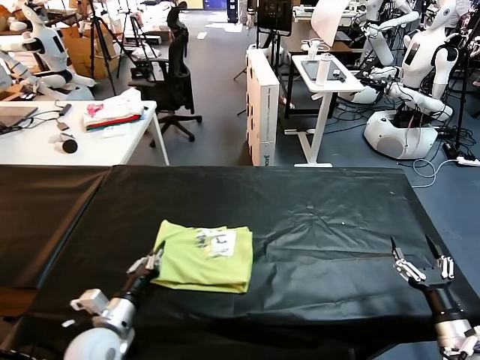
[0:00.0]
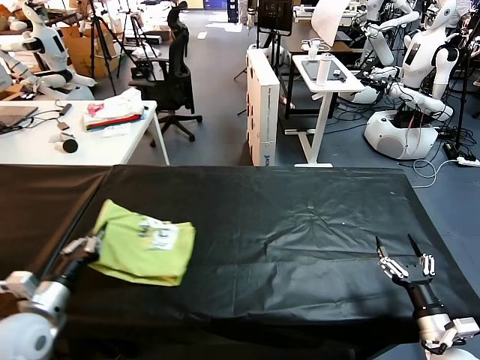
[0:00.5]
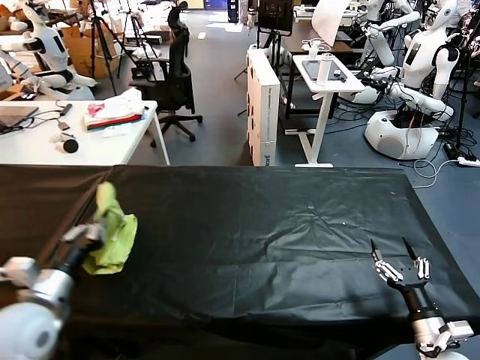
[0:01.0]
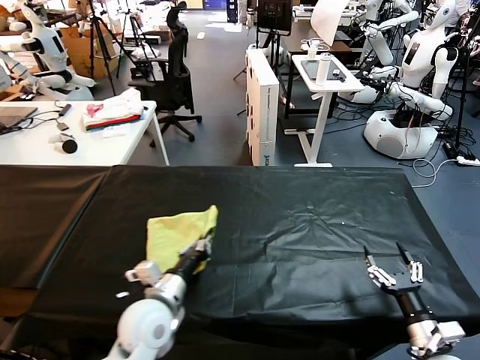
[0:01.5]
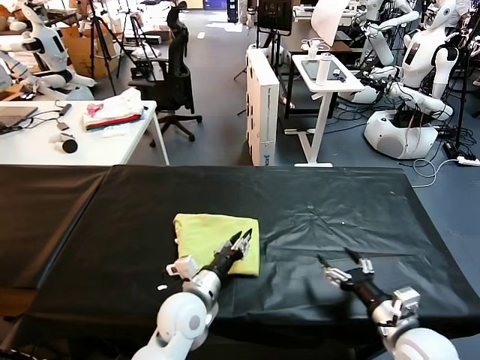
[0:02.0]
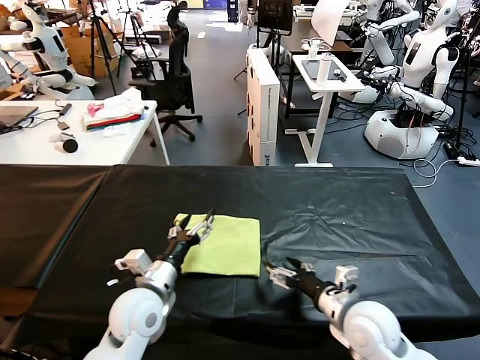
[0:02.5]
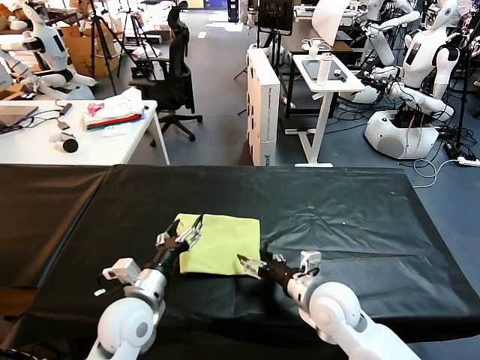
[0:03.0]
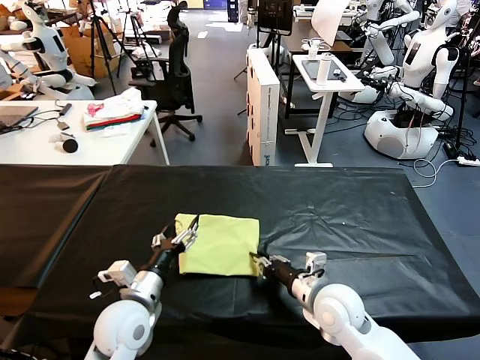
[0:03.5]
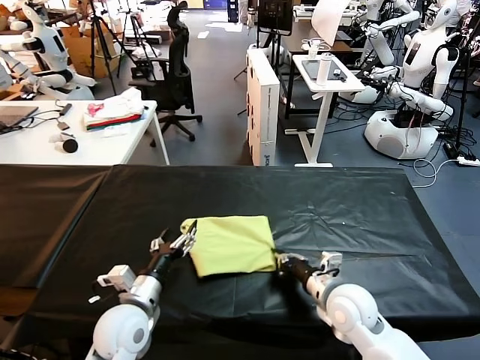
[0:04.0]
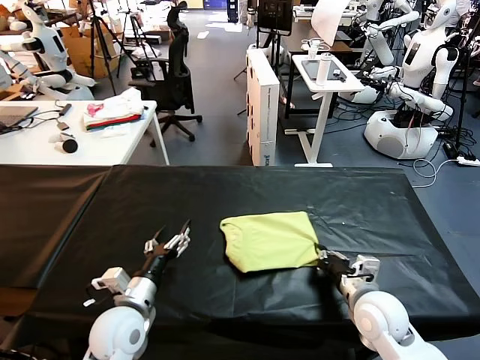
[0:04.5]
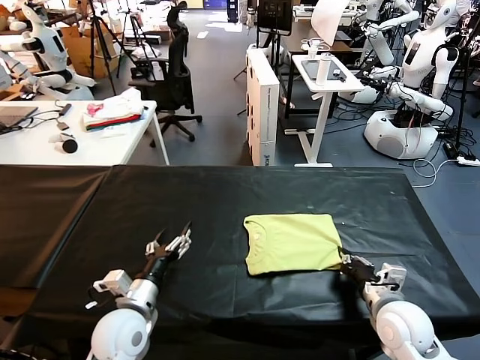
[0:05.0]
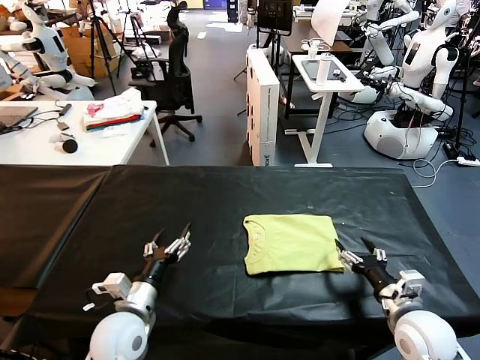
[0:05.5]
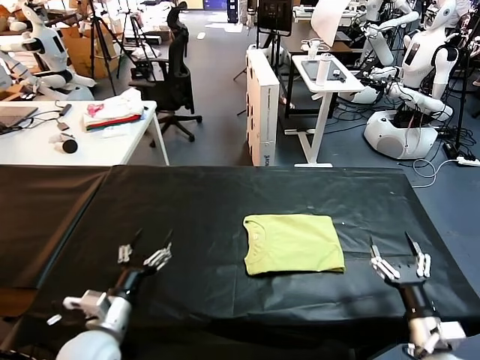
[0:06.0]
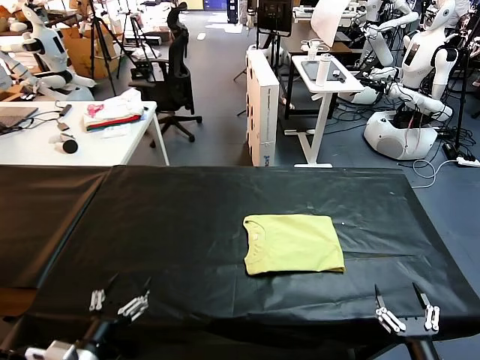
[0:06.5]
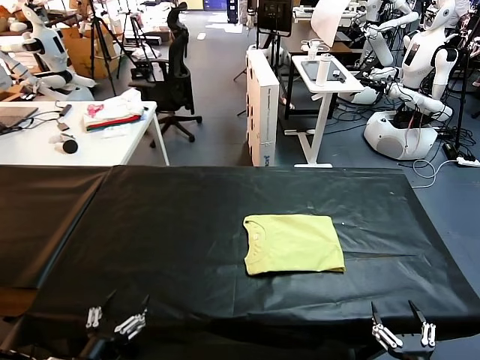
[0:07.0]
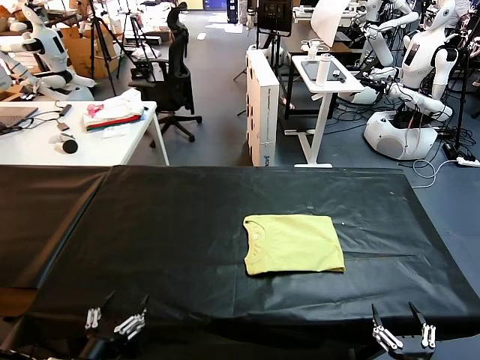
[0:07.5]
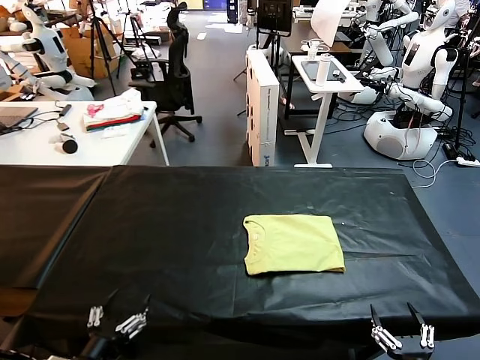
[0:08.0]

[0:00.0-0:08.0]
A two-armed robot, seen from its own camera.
Task of the whole recording: fold and organize the clothes.
Step, 0:00.0 to 0:02.0: Flip the folded clothes over with left gripper.
Step, 0:02.5 to 0:05.0: Drag the clothes to the center of the table.
0:00.0 to 0:02.0: The left gripper goes roughly 15 cm to the right, while the right gripper goes roughly 10 cm to the left.
0:02.0 to 0:04.0: The left gripper is displaced to the left by about 10 cm, and opens. Meanwhile the right gripper goes about 15 cm to the left and forward, and closes its fingers.
0:04.0 to 0:06.0: The right gripper heads to the right and backward, covering roughly 20 cm, and opens. Meanwhile the left gripper shifts by some 5 cm.
0:06.0 to 0:08.0: The grippers both shift backward by roughly 15 cm.

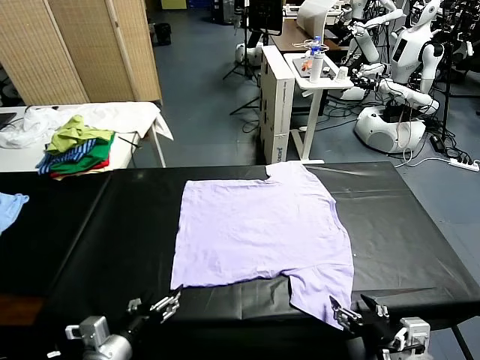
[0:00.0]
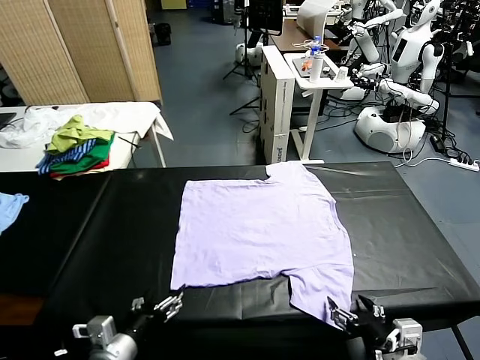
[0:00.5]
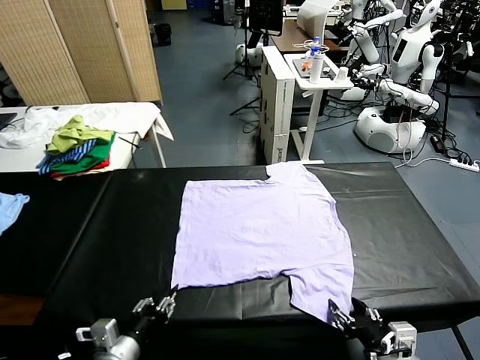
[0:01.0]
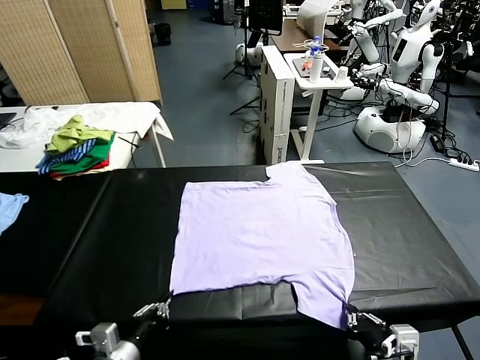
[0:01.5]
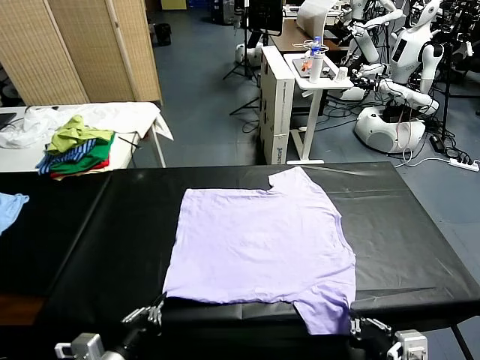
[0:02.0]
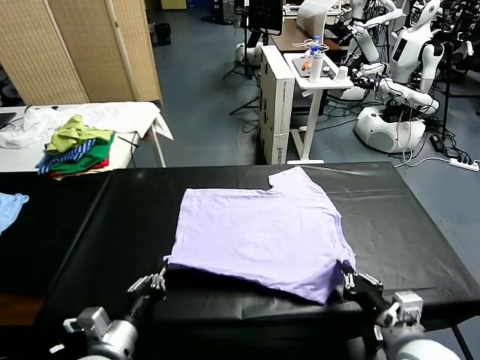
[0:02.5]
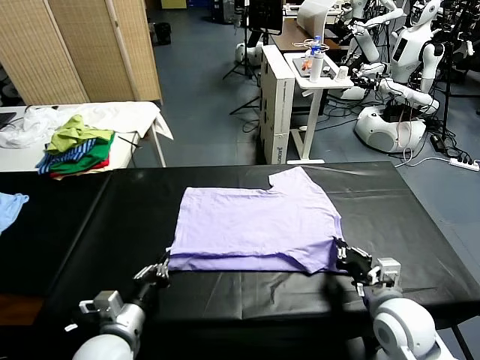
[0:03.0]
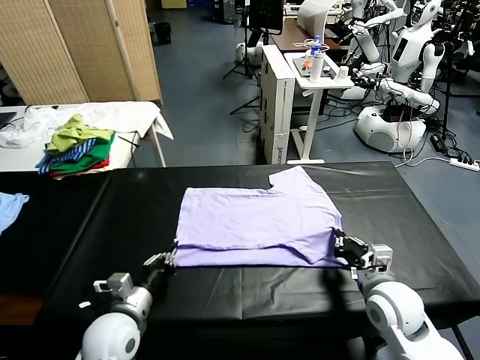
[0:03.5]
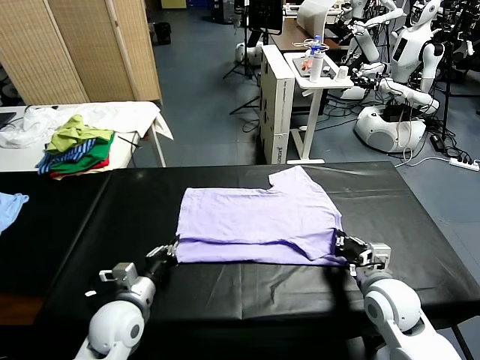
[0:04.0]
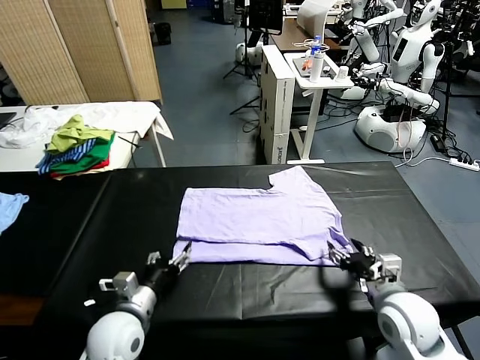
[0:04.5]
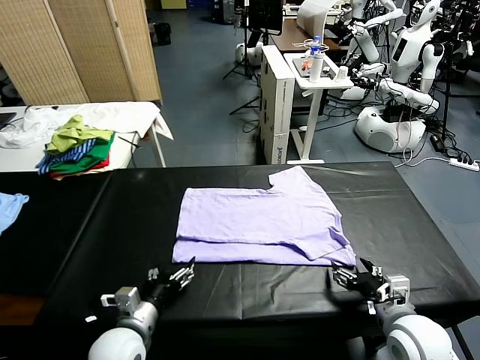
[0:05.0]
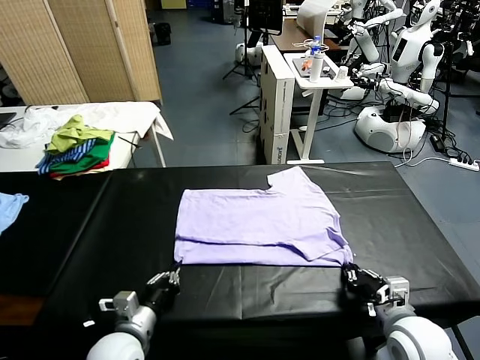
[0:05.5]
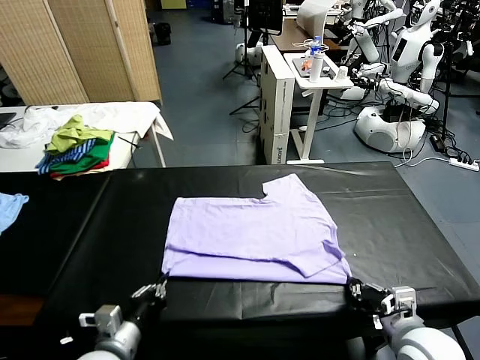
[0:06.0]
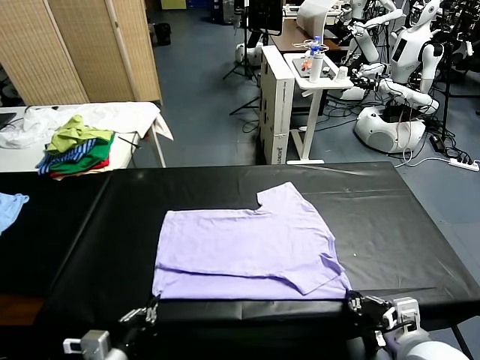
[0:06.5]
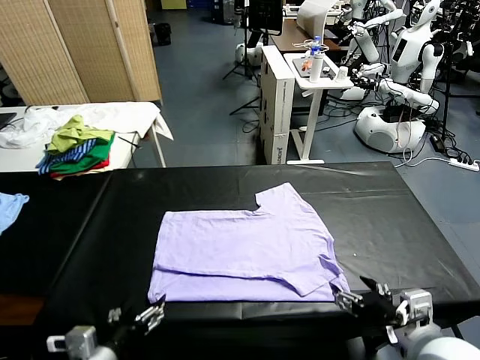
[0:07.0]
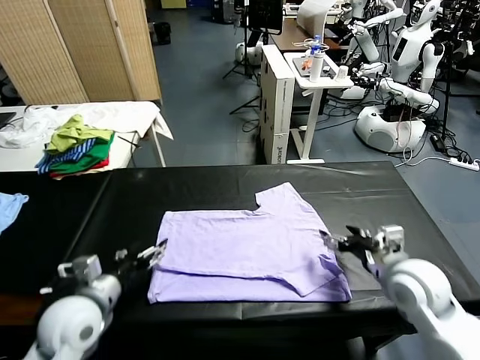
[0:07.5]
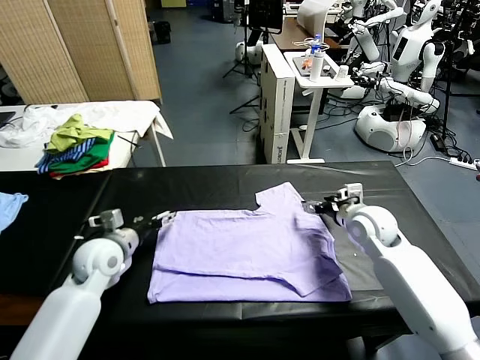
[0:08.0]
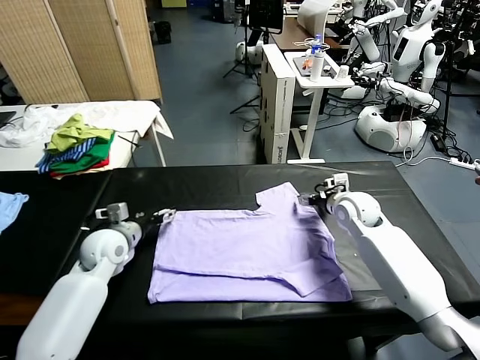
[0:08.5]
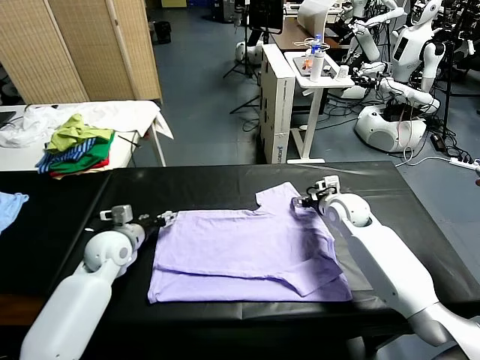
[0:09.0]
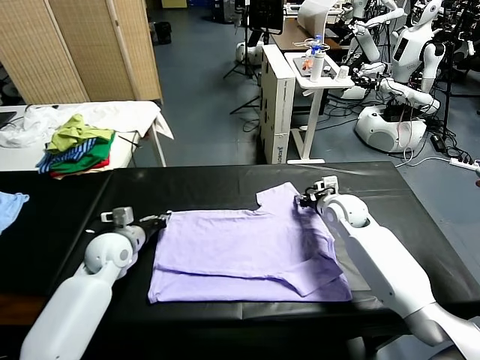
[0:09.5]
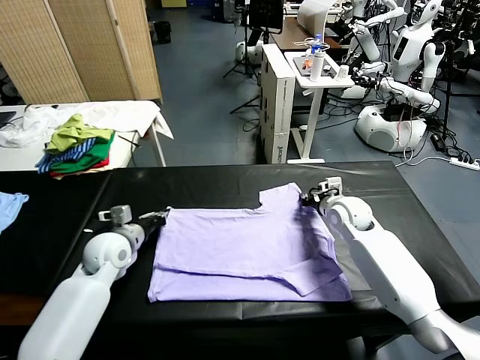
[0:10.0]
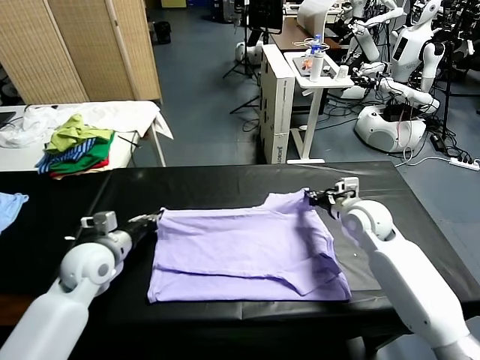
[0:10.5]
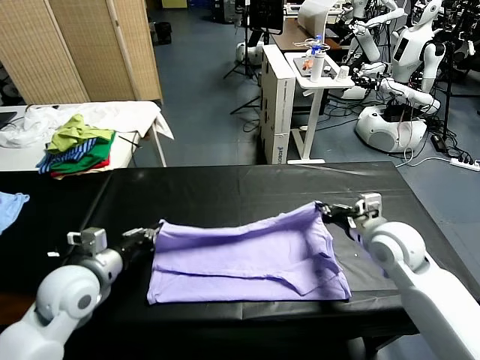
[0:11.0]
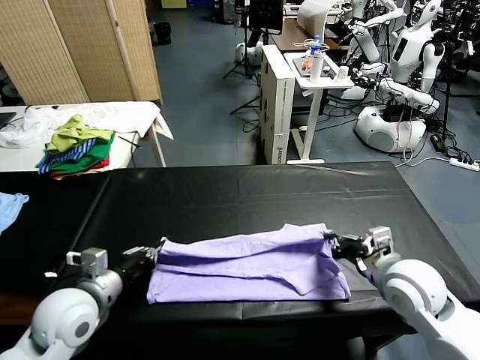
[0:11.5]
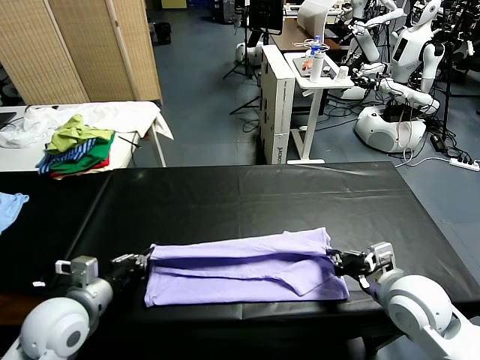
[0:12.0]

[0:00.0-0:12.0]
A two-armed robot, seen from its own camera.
Task of the whole recording: fold and organize the clothes.
Step, 0:00.0 to 0:01.5: use both grippers simultaneously to clamp the lower edge of the clothing fabric.
Step, 0:02.0 to 0:04.0: use both grippers to drag the lower edge of the fabric forward and fold it over the upper edge.
Step, 0:05.0 to 0:06.5: Drag the clothes downward with both gripper.
Step, 0:07.0 to 0:10.0: use both grippers simultaneously to clamp the upper edge of the clothing fabric.
0:02.0 to 0:04.0: The right gripper moves forward, roughly 10 cm, and opens up, while the left gripper moves forward and downward, about 15 cm.
0:04.0 to 0:06.0: Both grippers move backward, approximately 10 cm. The left gripper opens and closes again. Meanwhile the right gripper closes up.
0:06.0 to 0:08.0: The grippers both shift forward by about 30 cm. The right gripper opens up, while the left gripper opens its fingers.
0:08.0 to 0:10.0: The left gripper closes its fingers, while the right gripper closes up.
0:10.0 to 0:12.0: Both grippers travel together backward, some 20 cm.

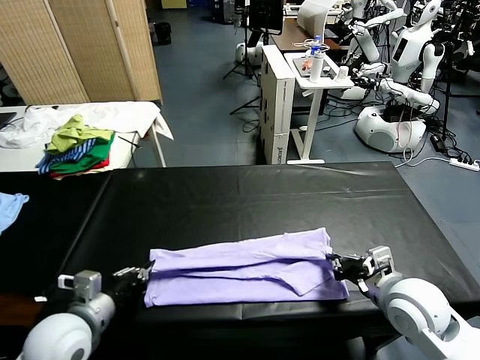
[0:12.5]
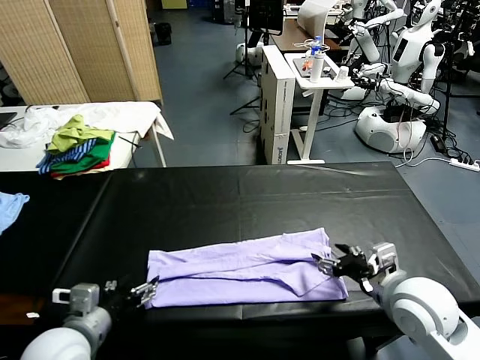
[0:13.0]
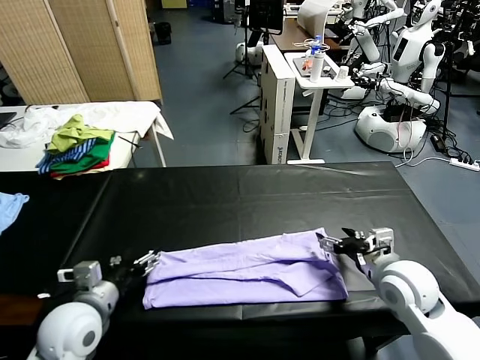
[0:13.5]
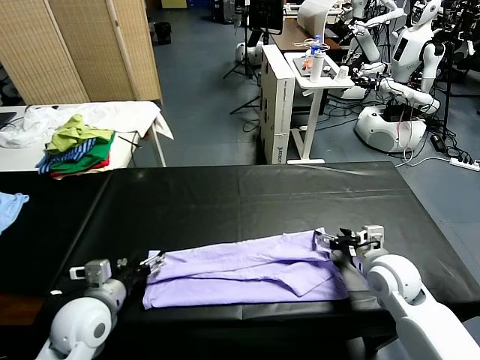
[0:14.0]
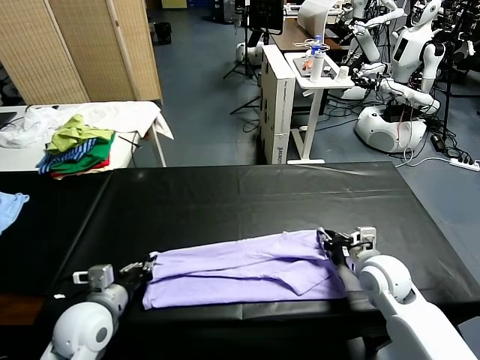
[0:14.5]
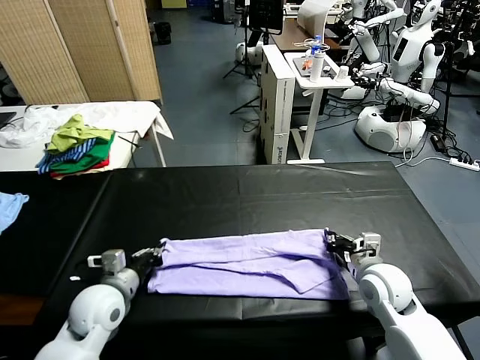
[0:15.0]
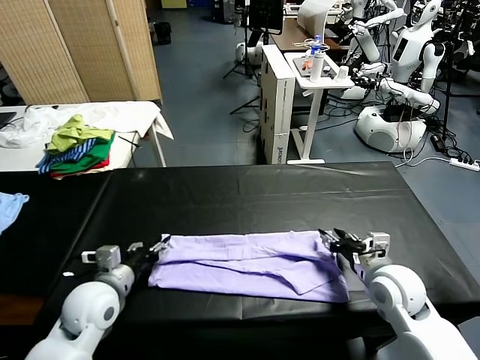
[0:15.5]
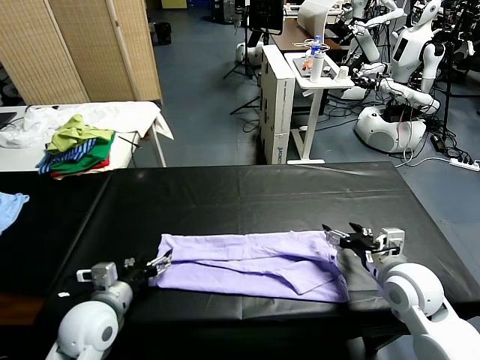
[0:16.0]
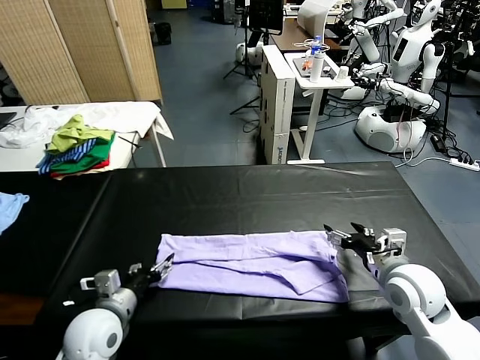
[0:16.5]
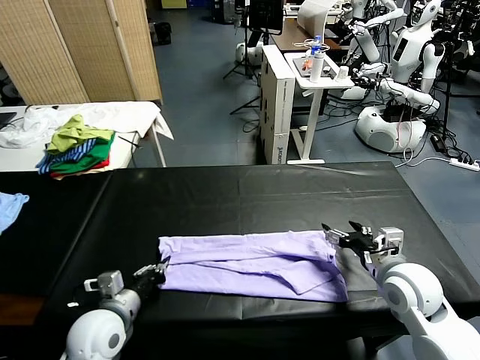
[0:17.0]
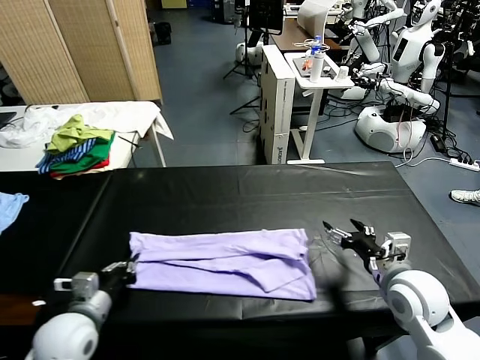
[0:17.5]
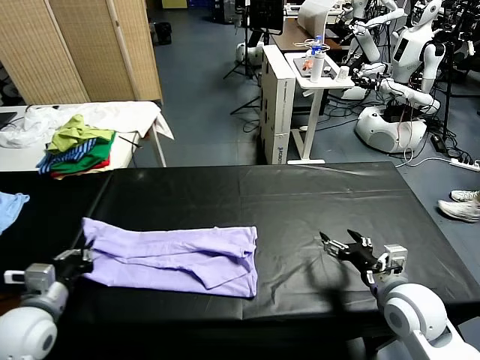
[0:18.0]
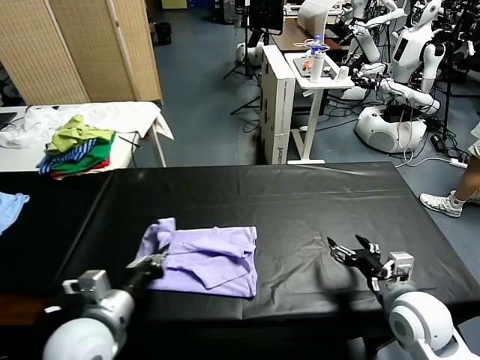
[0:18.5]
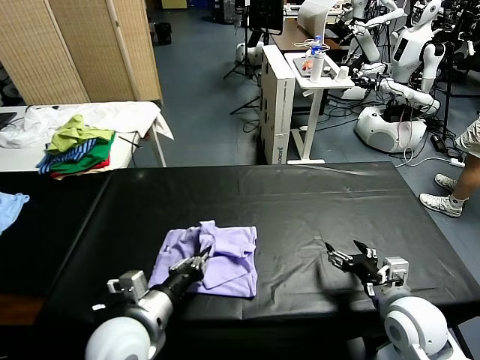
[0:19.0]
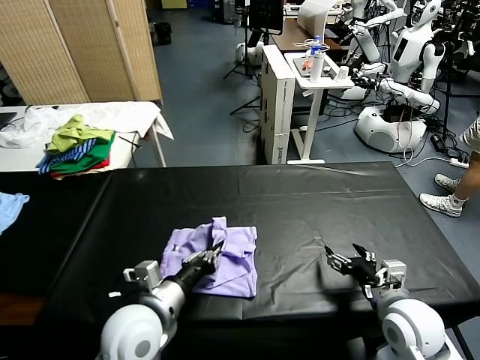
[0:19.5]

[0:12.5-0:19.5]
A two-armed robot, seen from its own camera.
Task of the whole recording: fold and organize the clothes.
Step, 0:13.0 to 0:17.0: use the left gripper to clamp the left edge of the fabric.
0:12.5 to 0:14.5: The left gripper shifts by about 5 cm, and opens, then closes again. Meanwhile the right gripper heads forward and downward, covering some 10 cm, and opens, then closes again.
0:14.5 to 0:16.0: The left gripper opens up, while the right gripper shifts approximately 5 cm upward, and opens its fingers.
0:16.0 to 0:17.5: The left gripper closes.
0:17.5 to 0:19.5: The left gripper travels to the right by some 15 cm.
